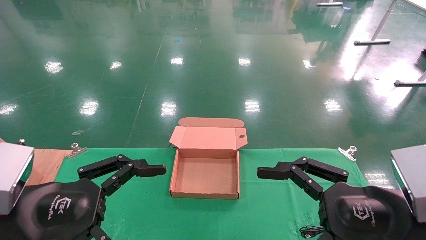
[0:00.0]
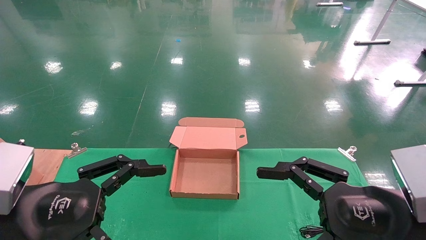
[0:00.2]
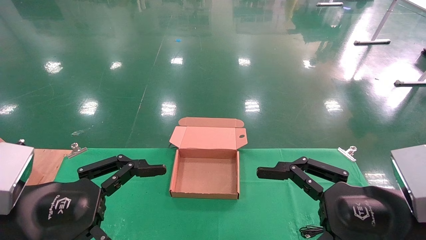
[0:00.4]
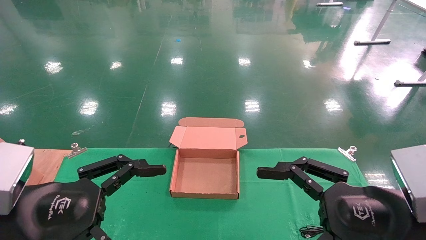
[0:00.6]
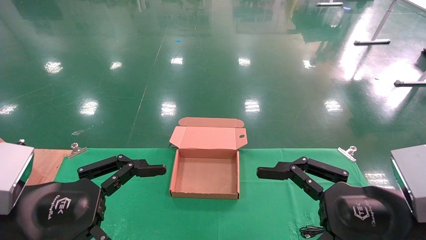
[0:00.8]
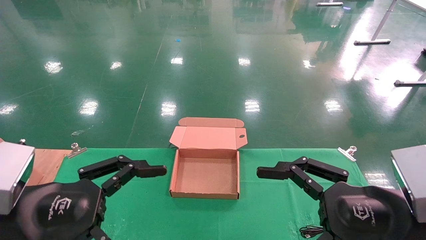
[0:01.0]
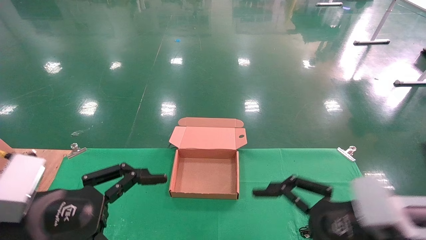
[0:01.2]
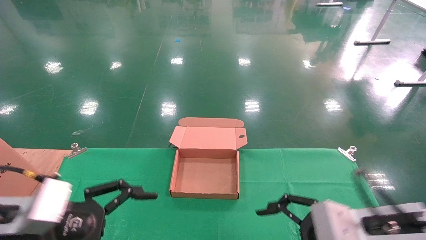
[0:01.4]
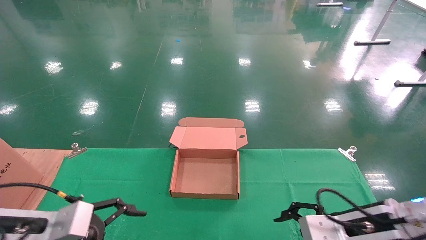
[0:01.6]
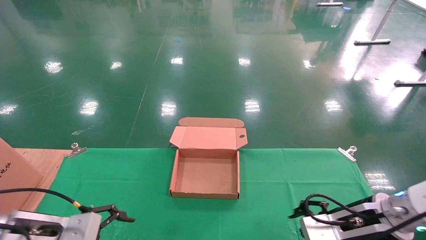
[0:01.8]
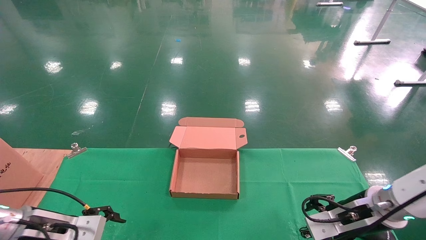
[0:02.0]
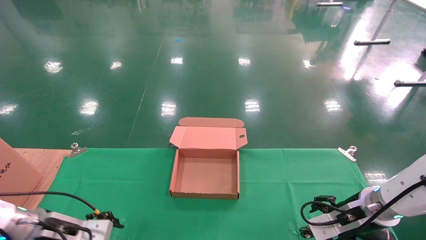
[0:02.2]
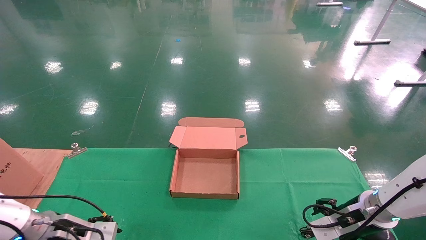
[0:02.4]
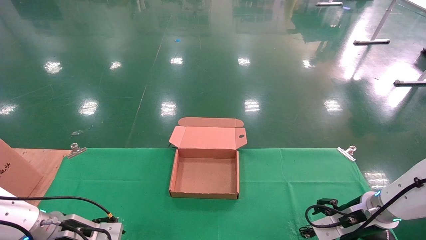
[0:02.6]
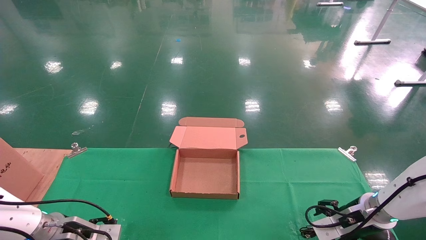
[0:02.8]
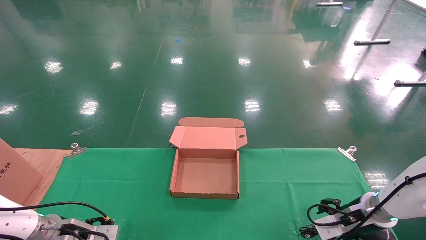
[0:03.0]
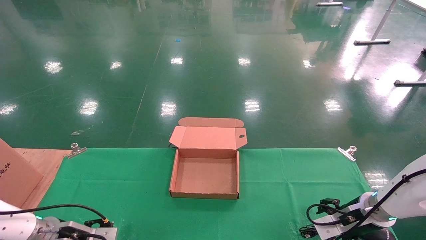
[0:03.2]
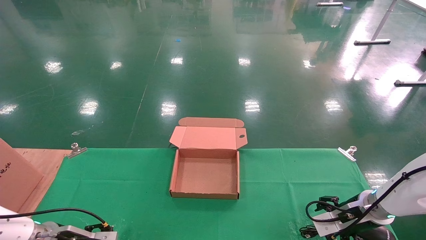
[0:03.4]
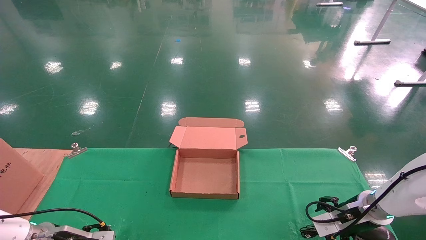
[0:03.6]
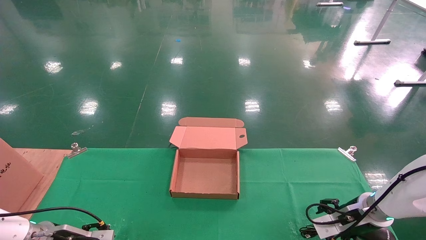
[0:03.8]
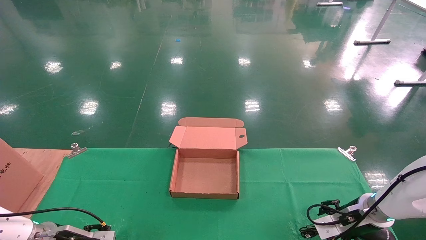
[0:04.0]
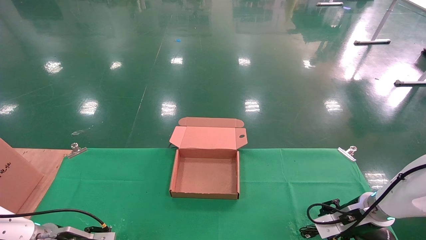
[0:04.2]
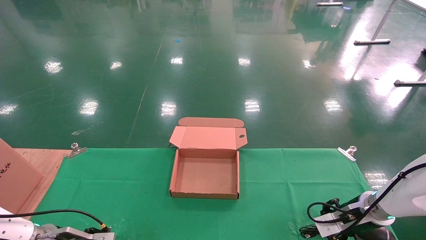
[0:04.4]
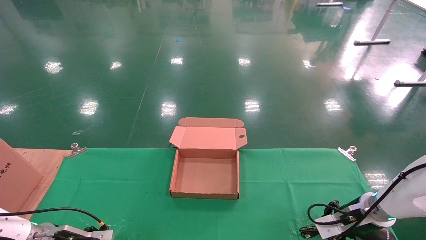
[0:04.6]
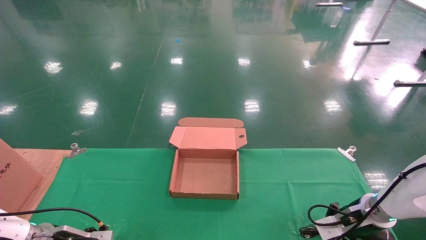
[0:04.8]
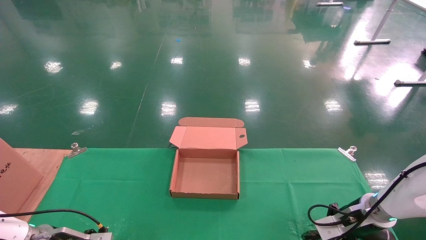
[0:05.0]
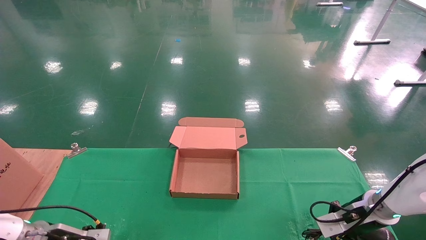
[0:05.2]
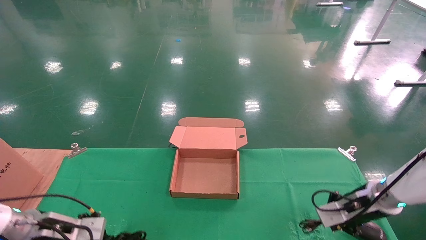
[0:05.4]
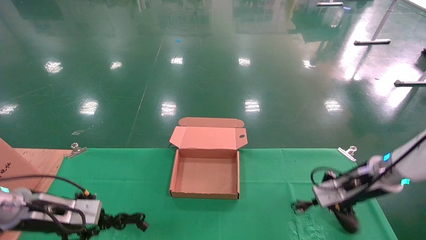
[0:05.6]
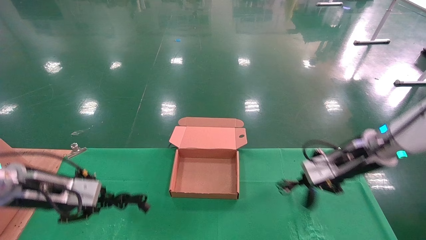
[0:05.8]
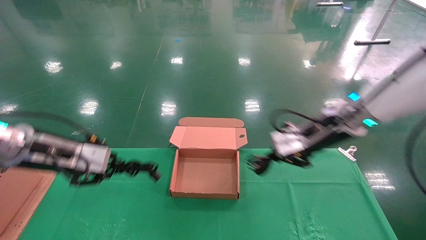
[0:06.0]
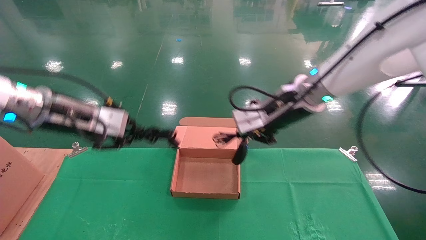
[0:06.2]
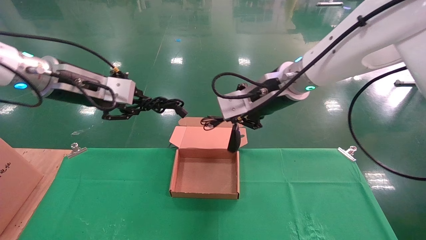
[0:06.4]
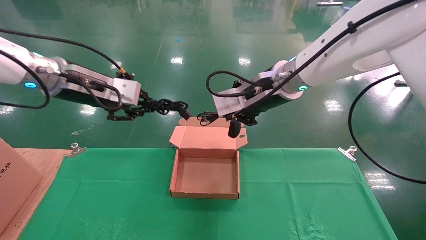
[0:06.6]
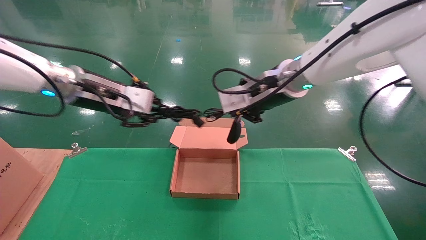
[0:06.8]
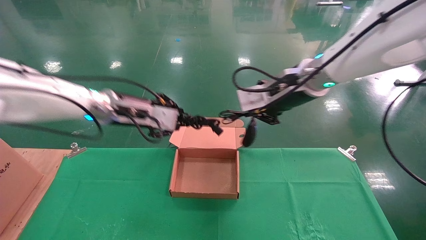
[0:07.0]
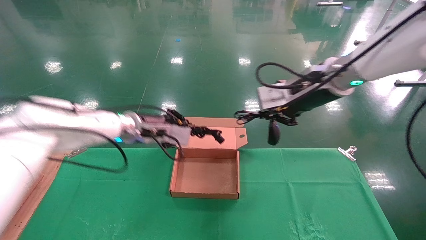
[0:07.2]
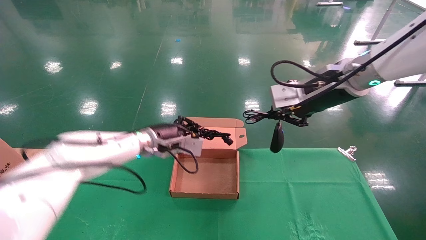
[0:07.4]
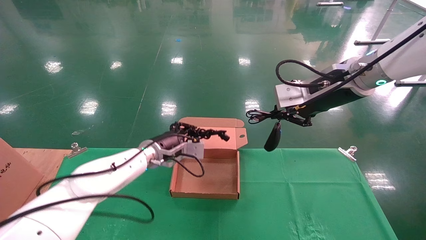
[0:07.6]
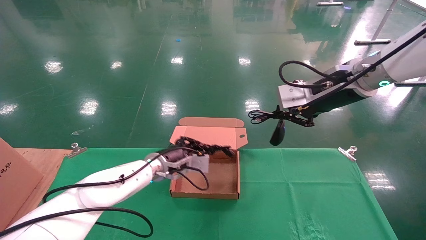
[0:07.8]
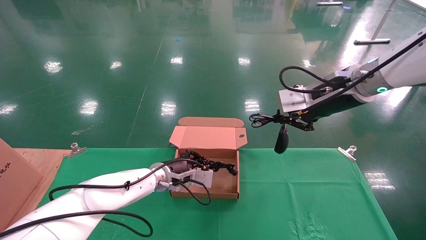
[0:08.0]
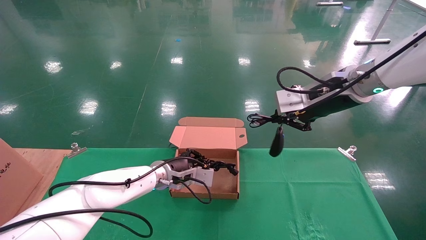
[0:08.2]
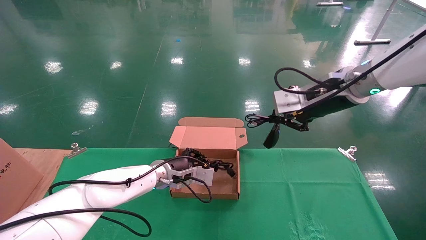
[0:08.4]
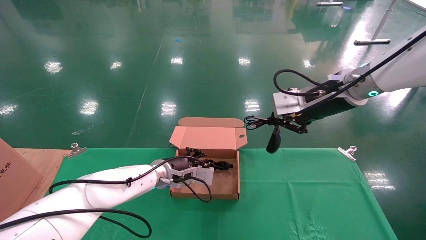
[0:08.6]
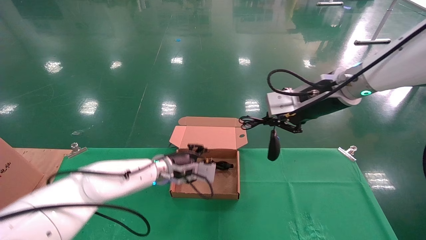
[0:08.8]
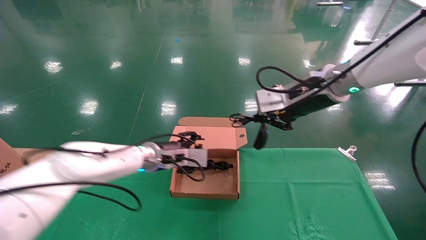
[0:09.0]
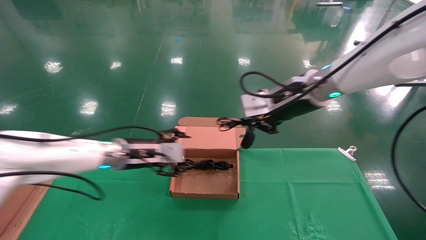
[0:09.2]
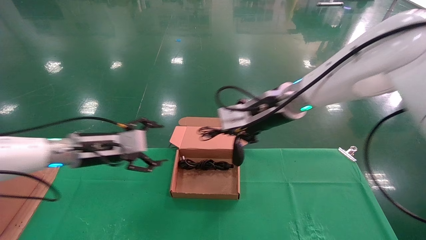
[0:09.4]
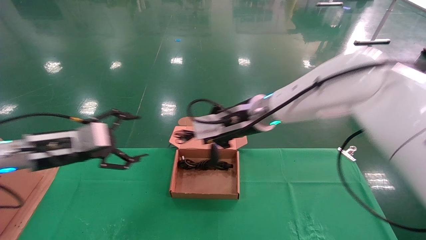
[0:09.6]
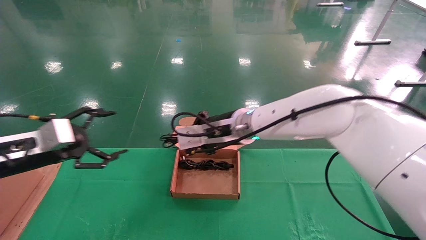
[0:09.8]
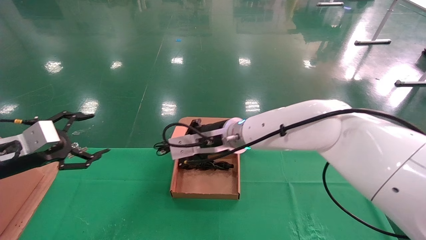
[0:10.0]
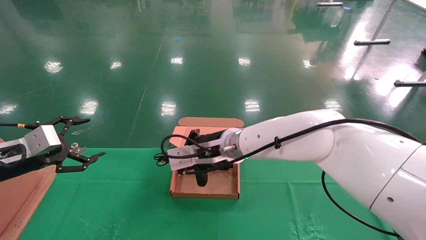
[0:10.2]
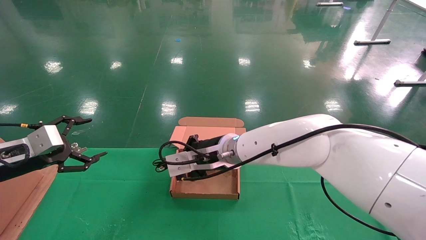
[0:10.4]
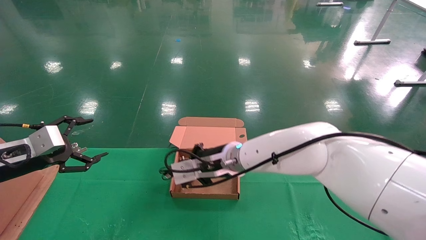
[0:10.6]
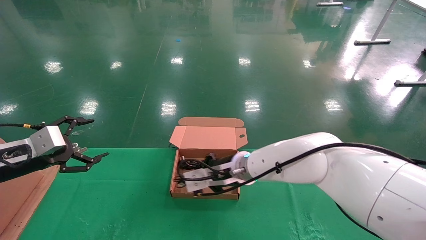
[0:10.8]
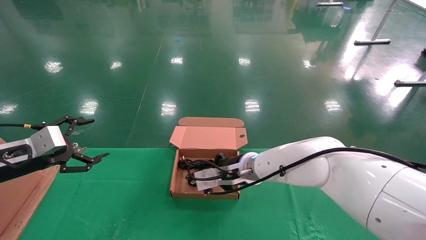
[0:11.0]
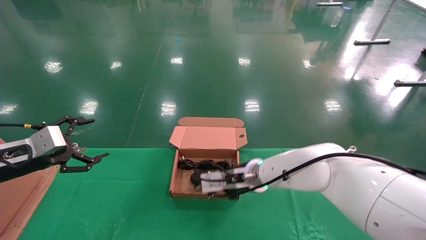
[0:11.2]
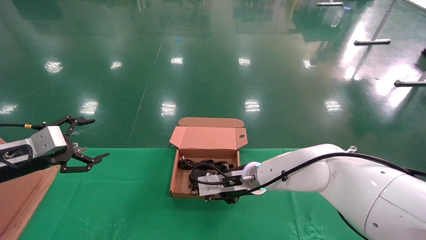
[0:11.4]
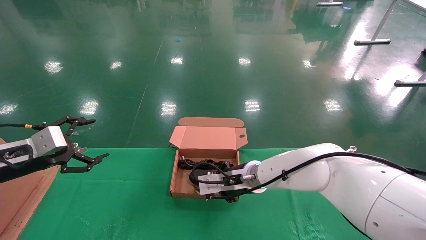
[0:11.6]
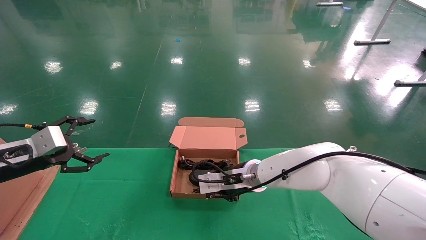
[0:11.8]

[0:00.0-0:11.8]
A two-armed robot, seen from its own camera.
Step, 0:01.8 to 0:05.6: Grab and lift both the mouse and power cord from the accessory packaging area at the same time.
0:00.0 to 0:01.4: The left gripper moves about 5 cm. Meanwhile the right gripper shifts about 10 cm forward and downward.
0:01.4 to 0:03.0: The left gripper shifts about 20 cm forward and downward. The right gripper moves forward, downward and to the right, approximately 20 cm.
0:03.0 to 0:04.4: The left gripper closes its fingers.
0:04.4 to 0:06.0: The left gripper moves upward, about 25 cm, and closes up. Meanwhile the right gripper heads upward and to the left, covering approximately 25 cm, and closes up.
0:06.0 to 0:07.4: The left gripper moves to the right and forward, some 20 cm. Meanwhile the right gripper goes approximately 10 cm upward, and travels to the left and back again, some 10 cm each way.
0:07.4 to 0:08.8: The left gripper shifts roughly 5 cm downward.
0:08.8 to 0:10.4: The right gripper shifts some 25 cm to the left and downward. The left gripper heads to the left and backward, covering roughly 30 cm, and opens.
0:10.4 to 0:11.8: The right gripper heads downward and to the right, covering about 10 cm.

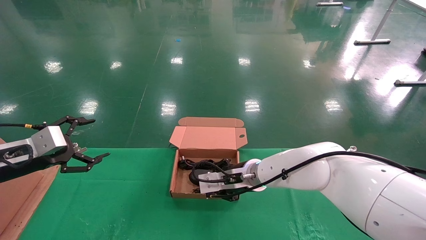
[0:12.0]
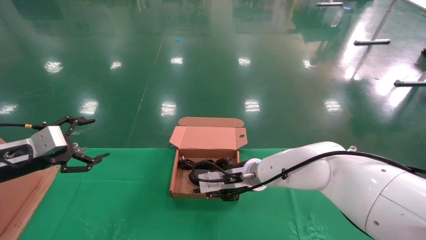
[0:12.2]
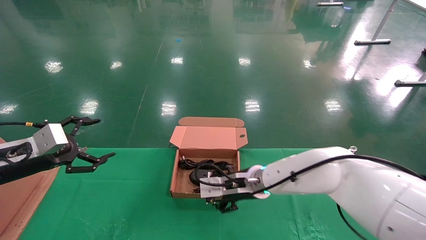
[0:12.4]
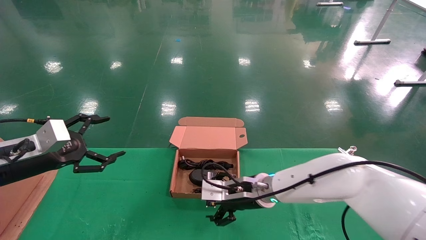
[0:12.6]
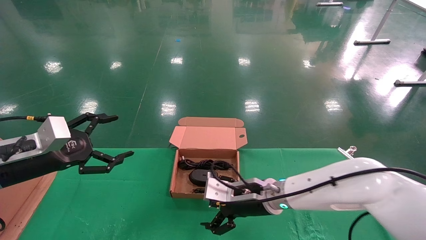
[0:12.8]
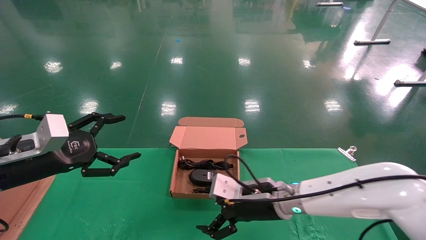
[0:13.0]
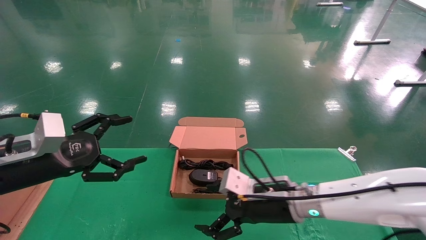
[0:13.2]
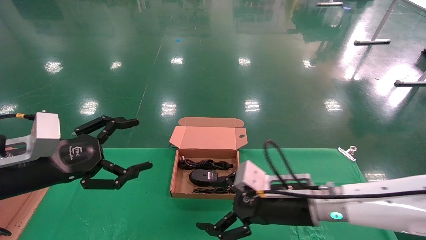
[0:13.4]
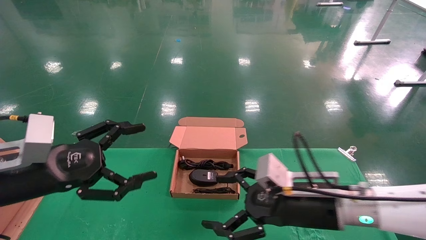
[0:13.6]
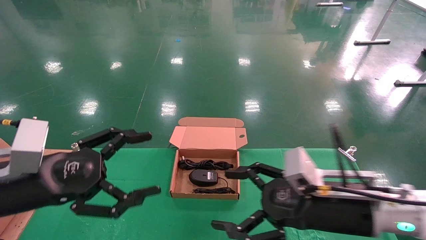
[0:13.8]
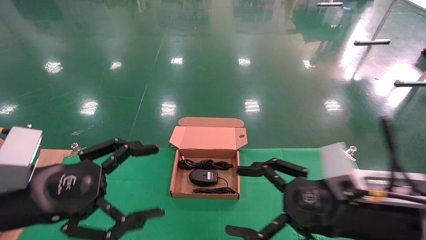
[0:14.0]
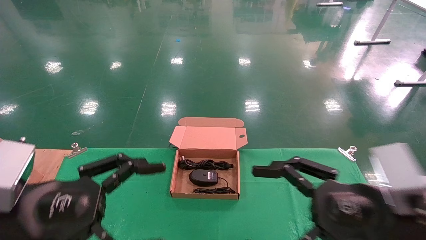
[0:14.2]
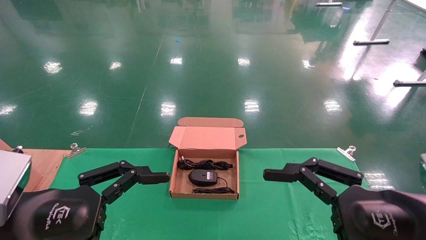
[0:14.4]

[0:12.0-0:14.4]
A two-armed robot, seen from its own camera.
0:12.0 to 0:13.2: The left gripper heads to the right and backward, covering some 10 cm, while the right gripper is displaced backward and to the right by roughly 10 cm, and opens its fingers.
0:13.2 to 0:14.4: The right gripper is displaced backward, to the right and upward by roughly 25 cm, while the left gripper travels backward and to the right by roughly 15 cm.
